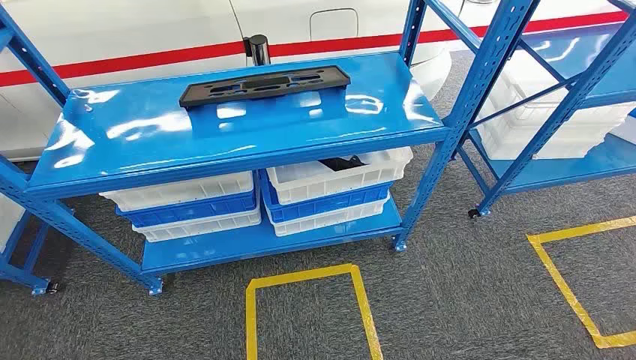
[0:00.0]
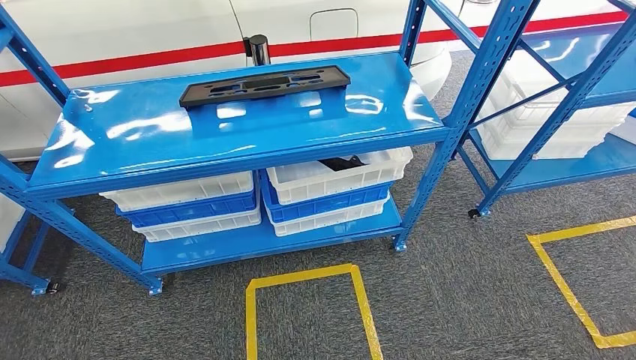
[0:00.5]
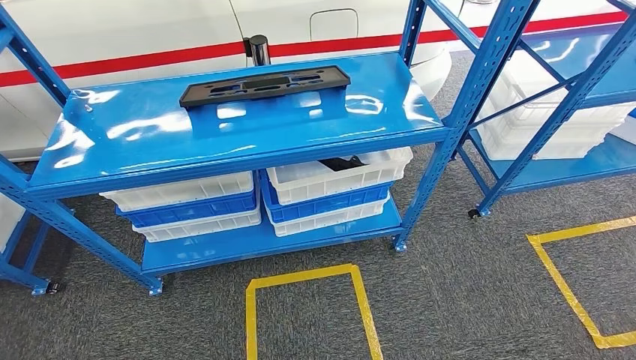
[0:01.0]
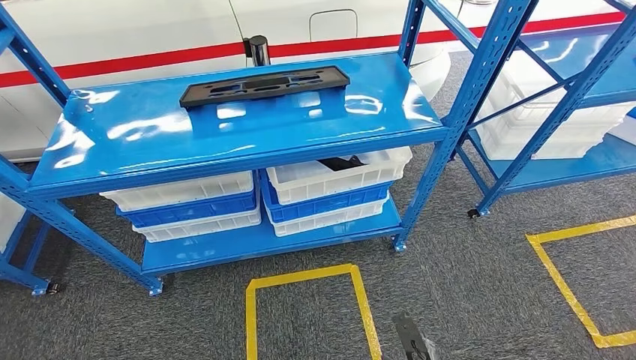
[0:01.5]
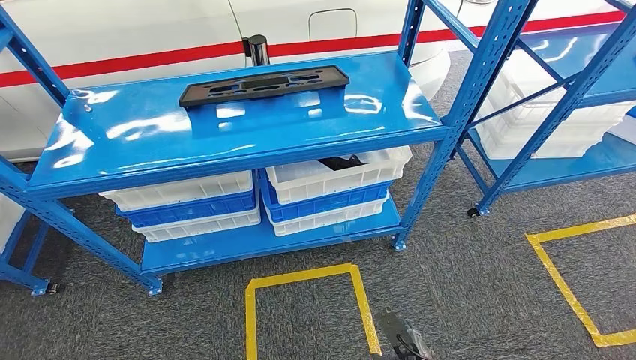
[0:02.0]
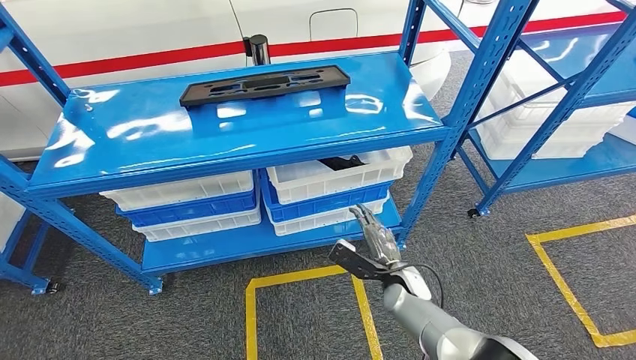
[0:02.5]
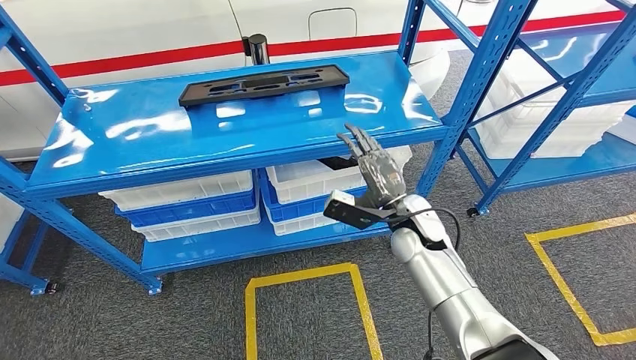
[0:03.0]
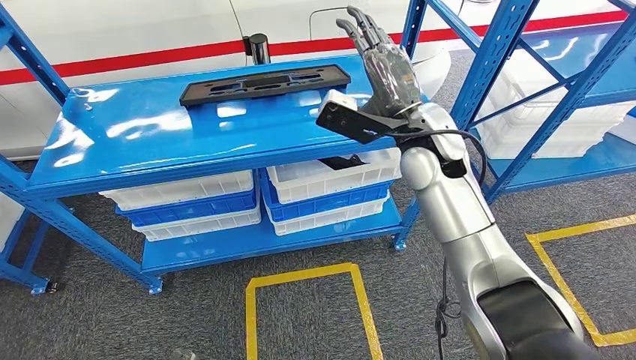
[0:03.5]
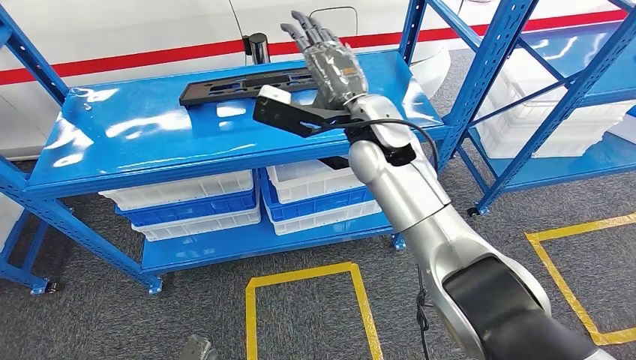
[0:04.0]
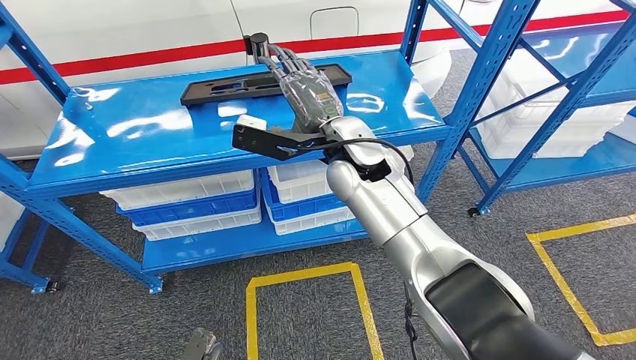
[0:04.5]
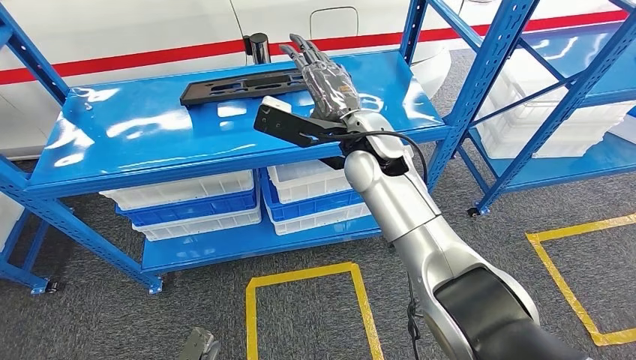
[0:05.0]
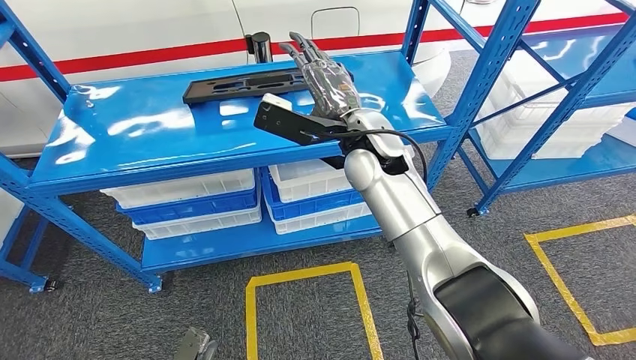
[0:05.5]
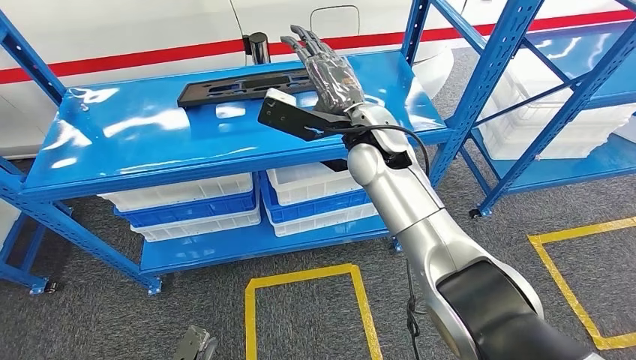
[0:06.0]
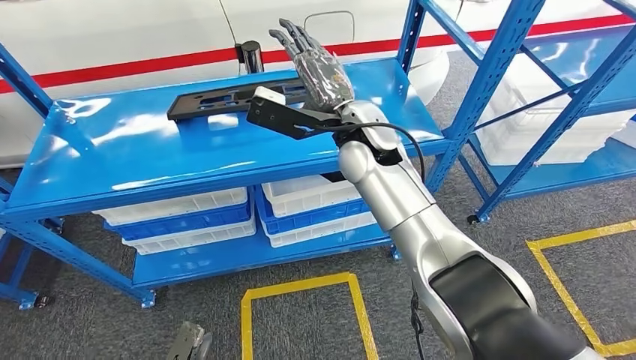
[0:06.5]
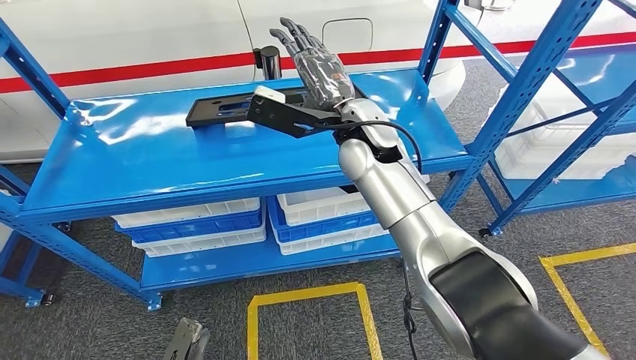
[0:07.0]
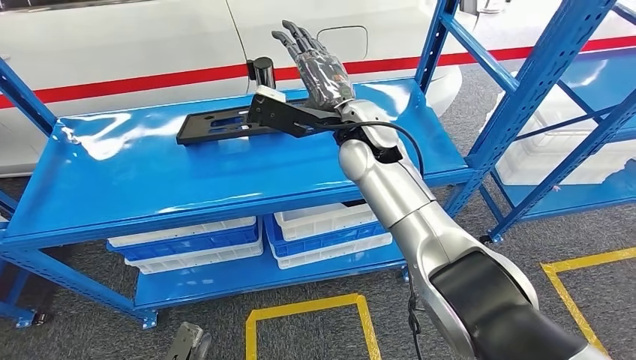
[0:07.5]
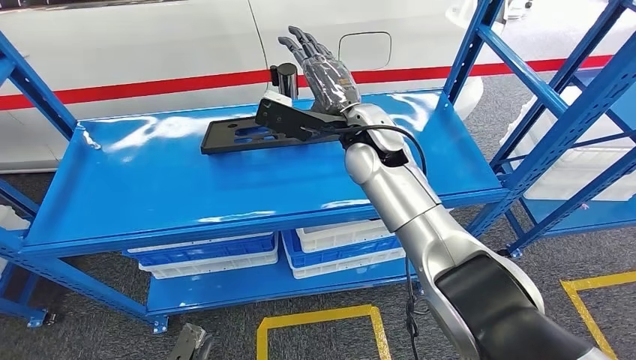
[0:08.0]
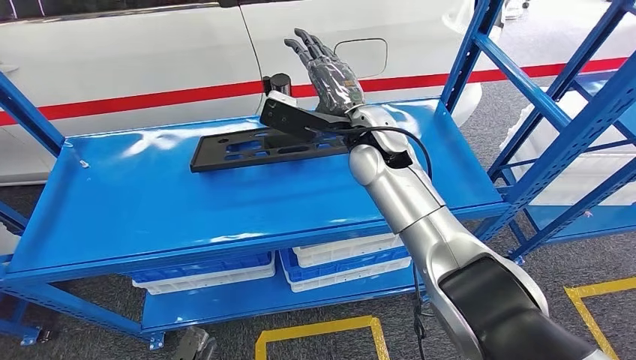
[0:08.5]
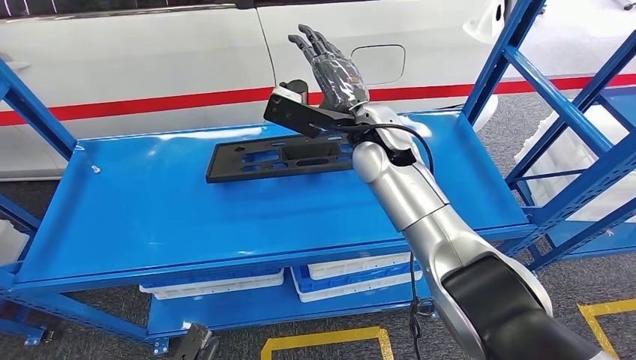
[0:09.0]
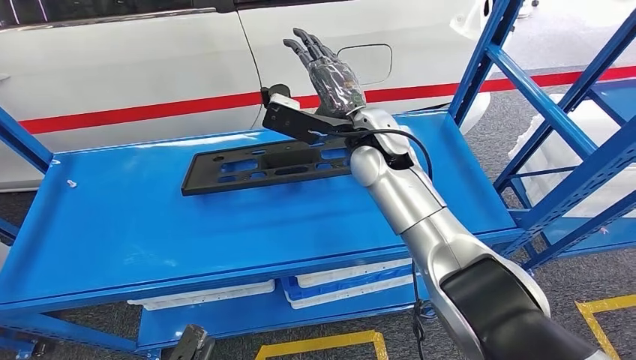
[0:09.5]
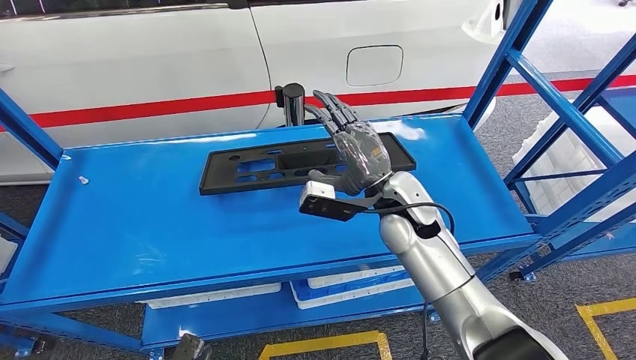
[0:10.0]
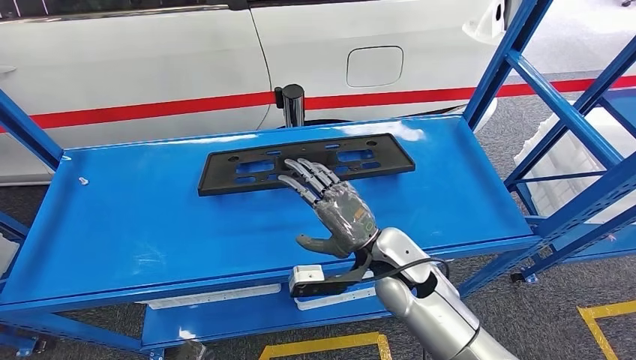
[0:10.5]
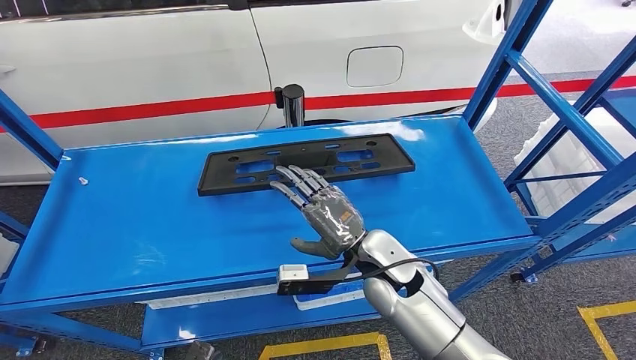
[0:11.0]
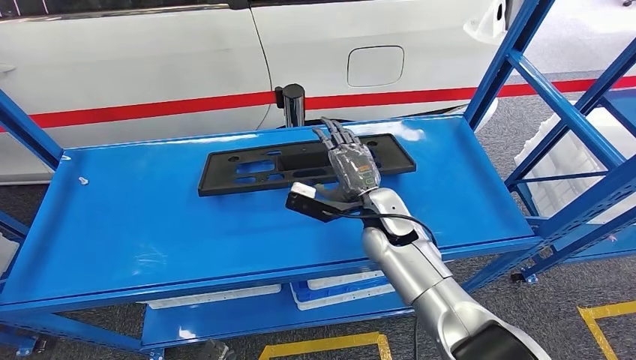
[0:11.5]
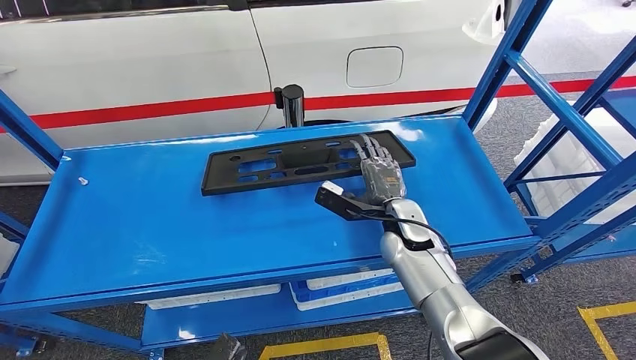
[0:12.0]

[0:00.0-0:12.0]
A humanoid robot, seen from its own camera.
0:02.0 to 0:04.0: The right hand shifts approximately 50 cm upward and forward. Meanwhile the left hand is displaced forward by some 5 cm.
0:10.0 to 0:12.0: The left hand goes roughly 5 cm to the right. Meanwhile the right hand moves downward, approximately 10 cm.

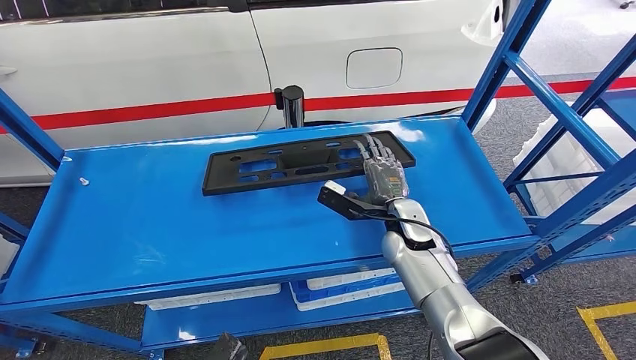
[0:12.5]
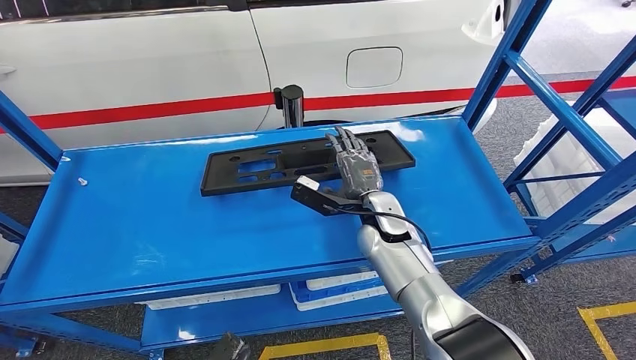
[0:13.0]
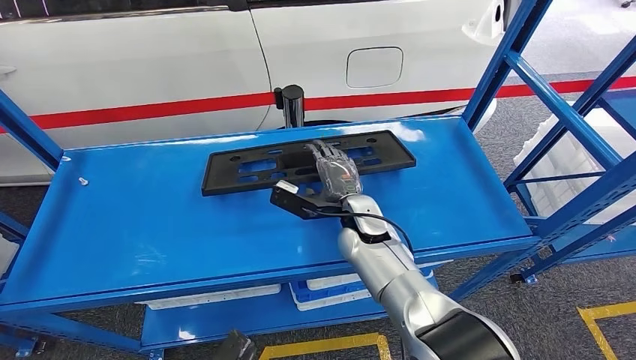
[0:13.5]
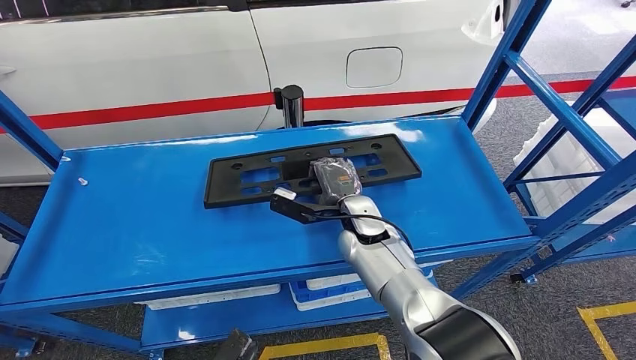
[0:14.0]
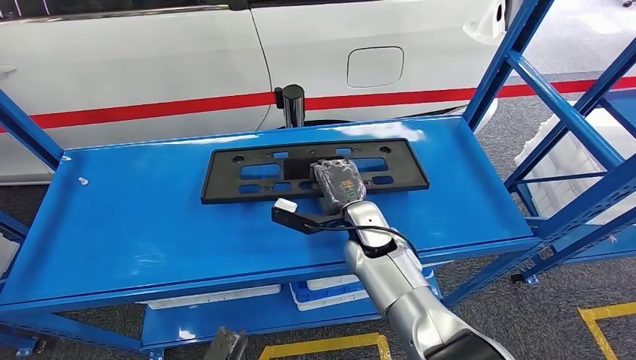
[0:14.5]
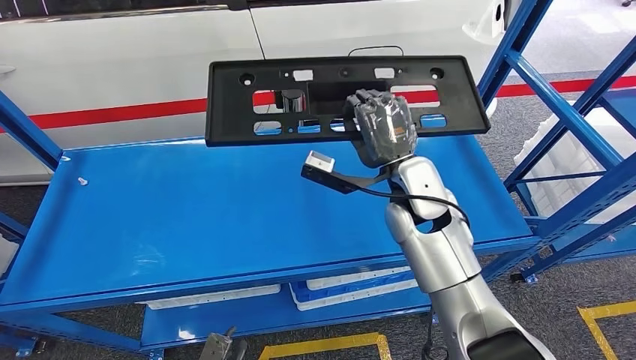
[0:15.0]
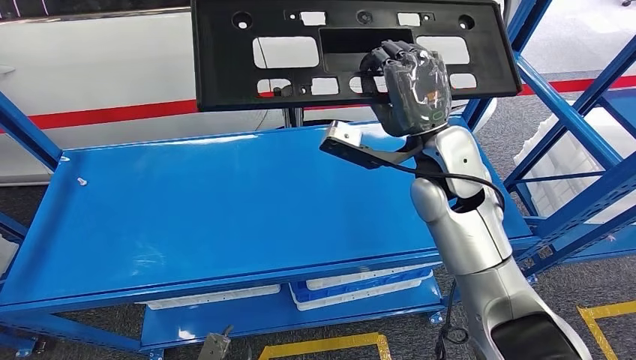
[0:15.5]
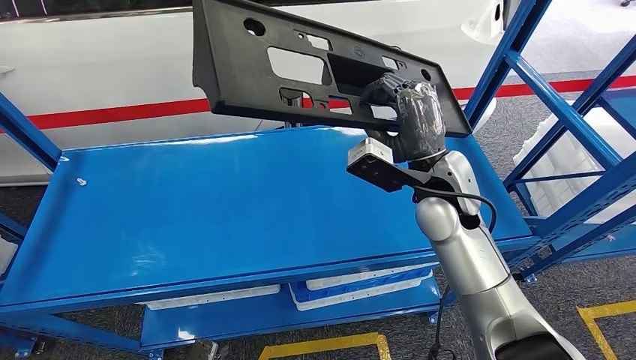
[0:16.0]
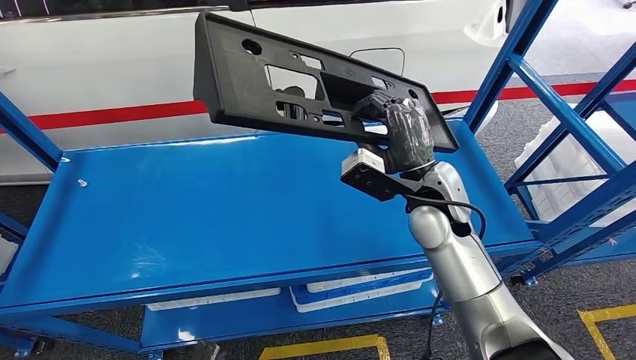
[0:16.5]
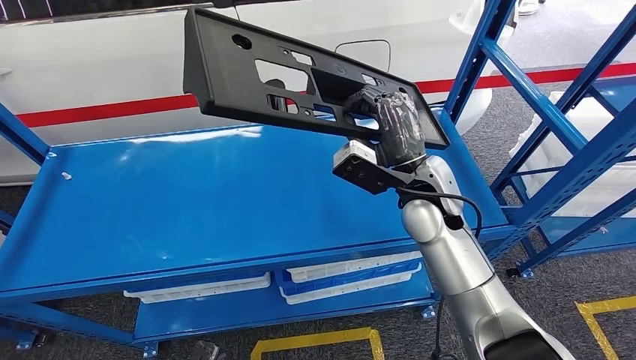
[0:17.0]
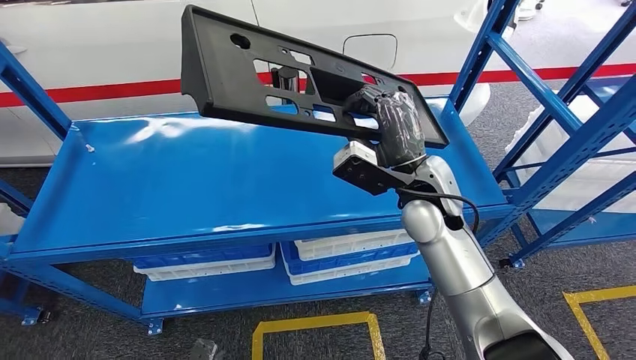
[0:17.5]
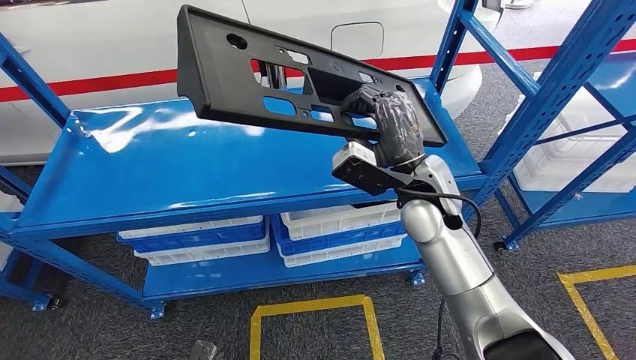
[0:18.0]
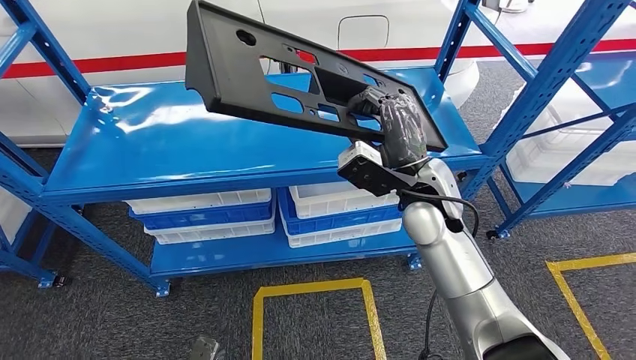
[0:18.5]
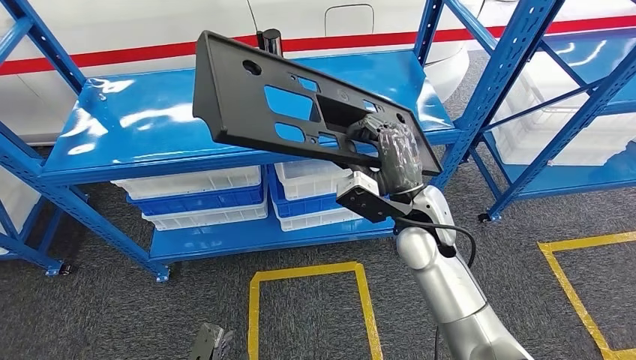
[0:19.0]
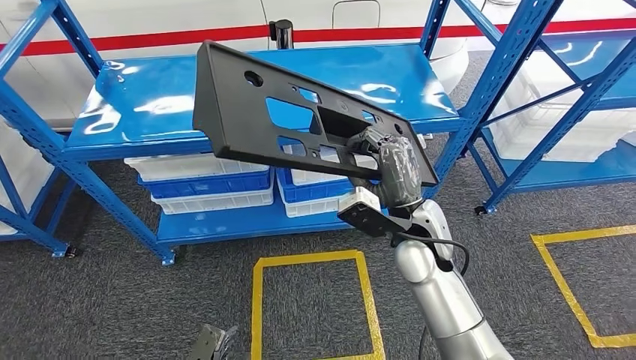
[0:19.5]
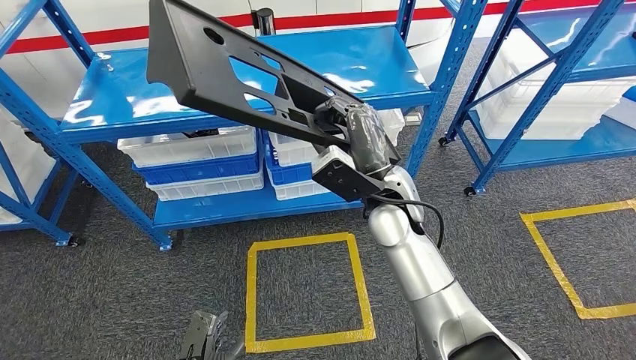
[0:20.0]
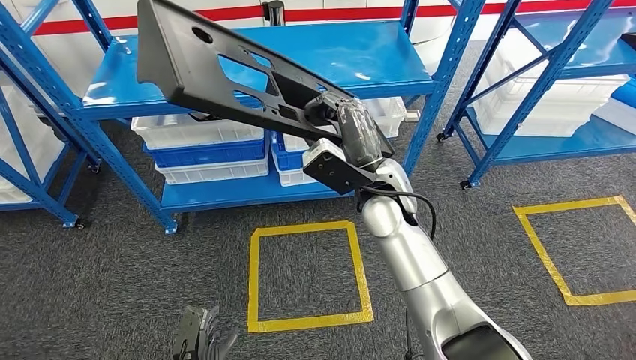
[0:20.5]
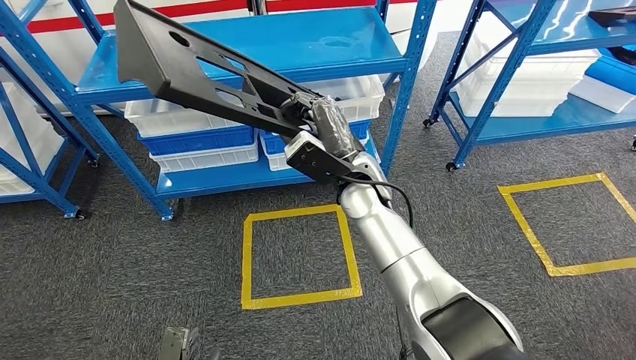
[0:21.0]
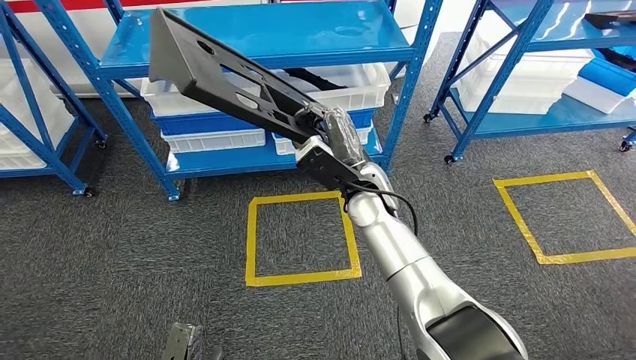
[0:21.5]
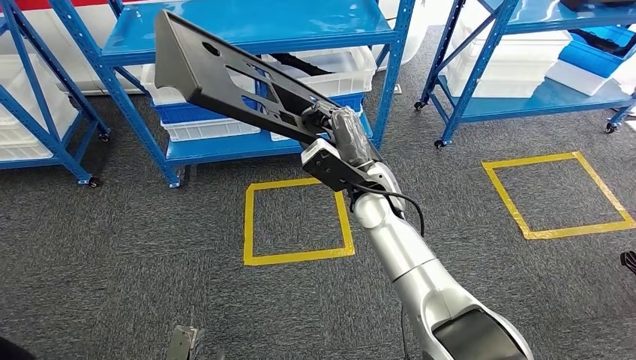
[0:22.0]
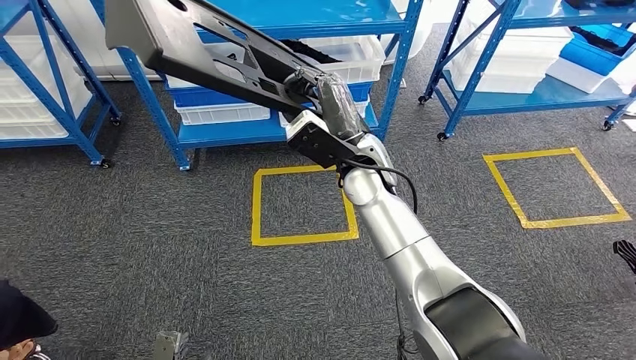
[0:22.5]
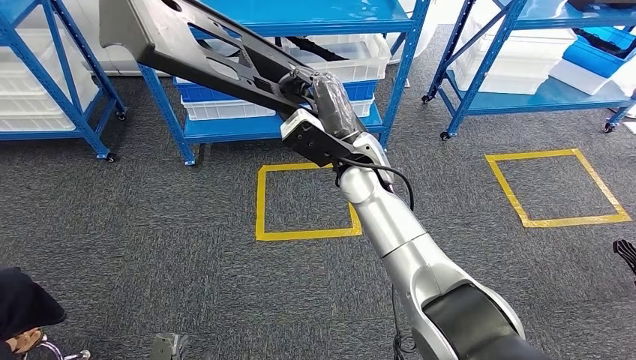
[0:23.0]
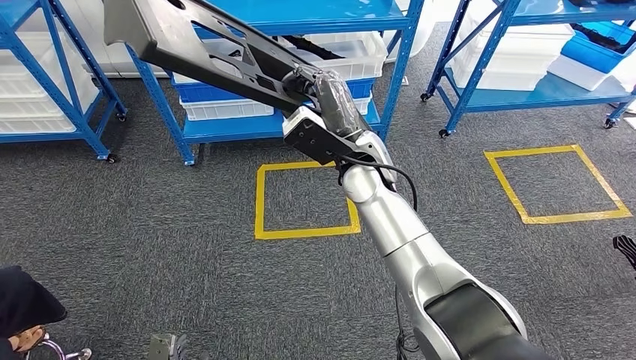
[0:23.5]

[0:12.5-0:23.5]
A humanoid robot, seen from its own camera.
Step, 0:12.5 to 0:15.5: Pick up the large material from the shelf.
0:12.5 to 0:14.5: The right hand is displaced to the left by some 10 cm.
